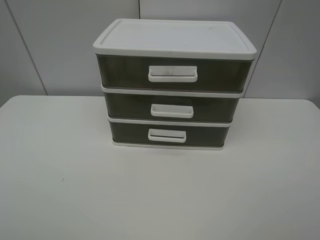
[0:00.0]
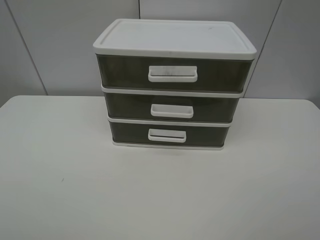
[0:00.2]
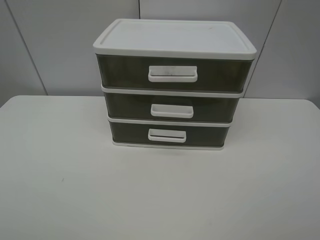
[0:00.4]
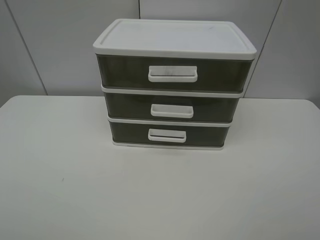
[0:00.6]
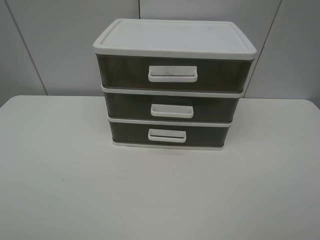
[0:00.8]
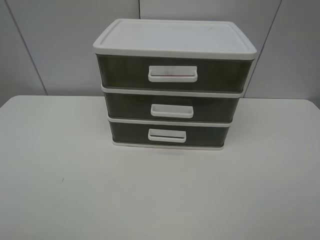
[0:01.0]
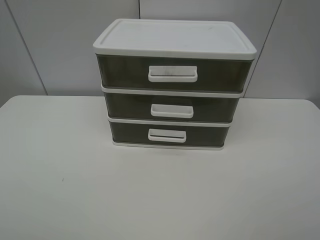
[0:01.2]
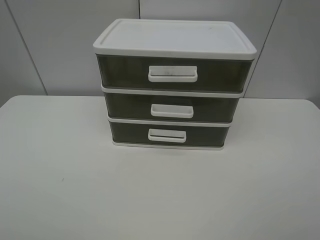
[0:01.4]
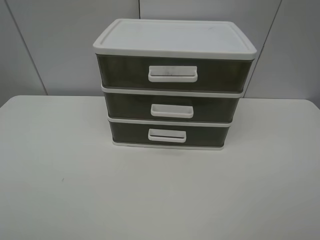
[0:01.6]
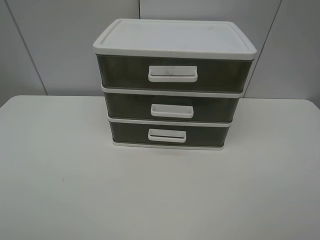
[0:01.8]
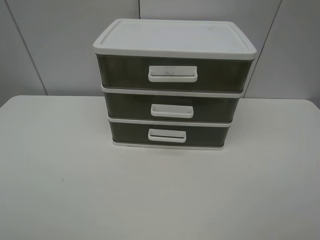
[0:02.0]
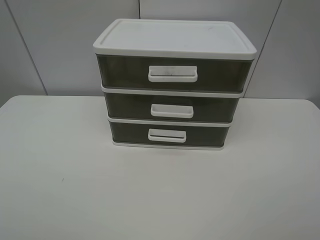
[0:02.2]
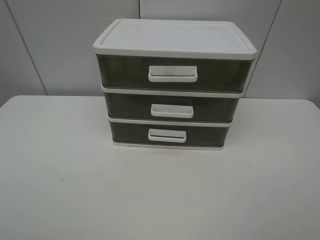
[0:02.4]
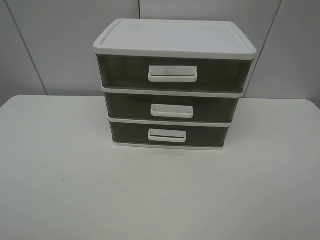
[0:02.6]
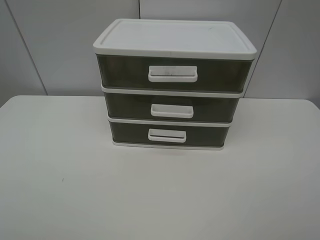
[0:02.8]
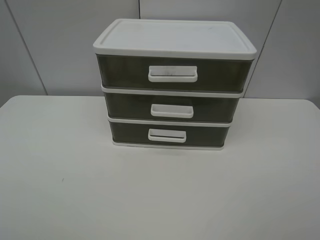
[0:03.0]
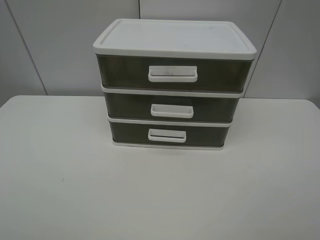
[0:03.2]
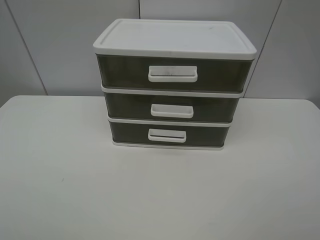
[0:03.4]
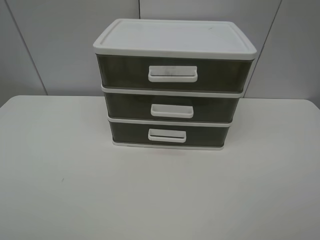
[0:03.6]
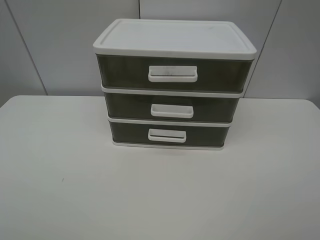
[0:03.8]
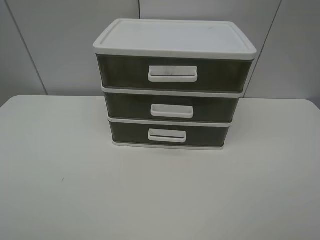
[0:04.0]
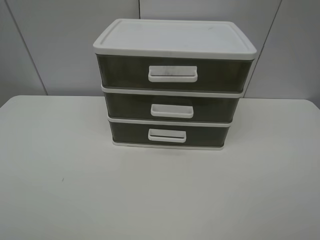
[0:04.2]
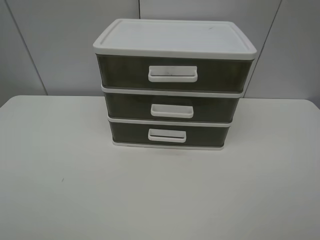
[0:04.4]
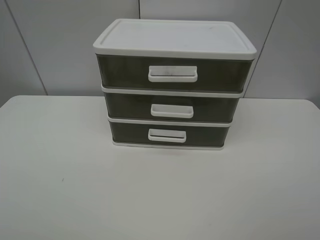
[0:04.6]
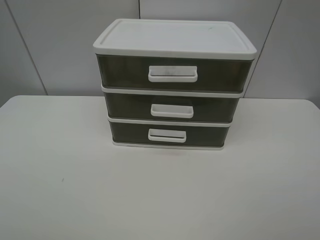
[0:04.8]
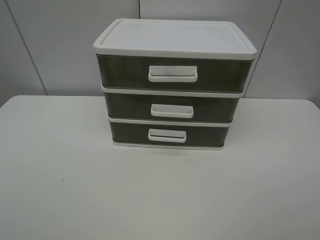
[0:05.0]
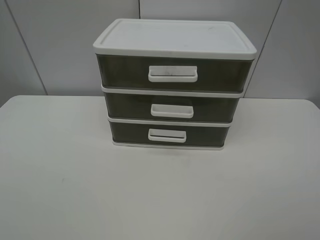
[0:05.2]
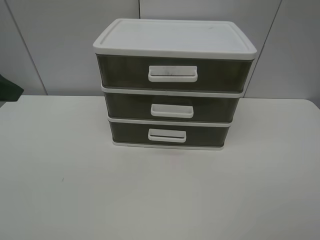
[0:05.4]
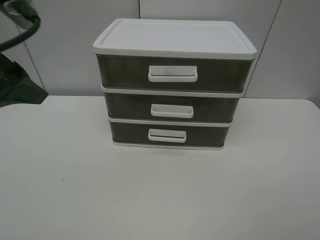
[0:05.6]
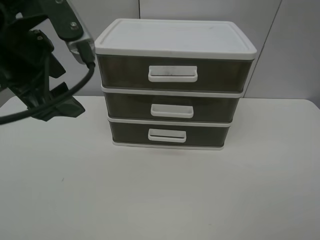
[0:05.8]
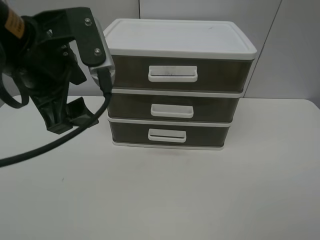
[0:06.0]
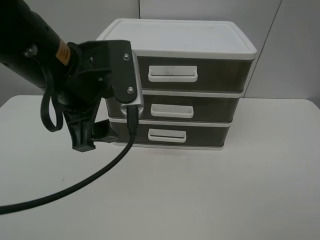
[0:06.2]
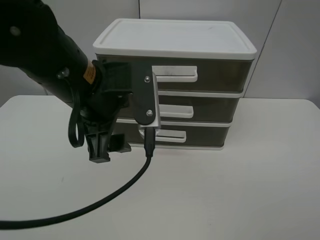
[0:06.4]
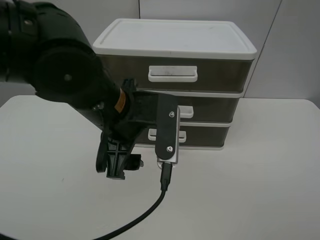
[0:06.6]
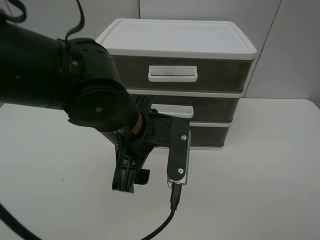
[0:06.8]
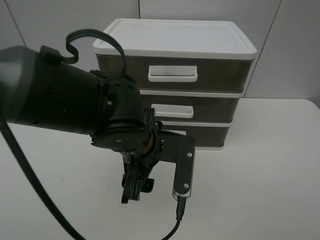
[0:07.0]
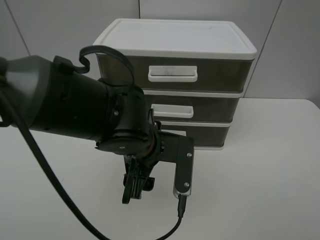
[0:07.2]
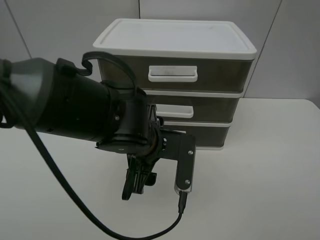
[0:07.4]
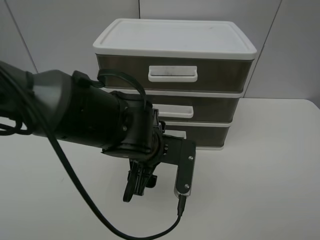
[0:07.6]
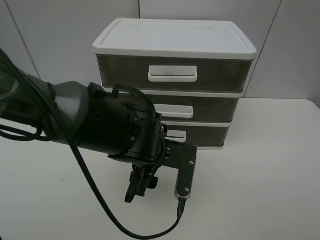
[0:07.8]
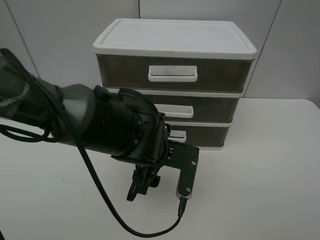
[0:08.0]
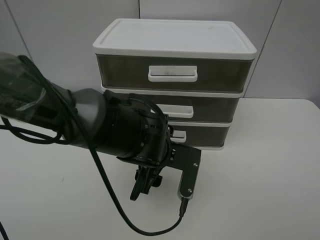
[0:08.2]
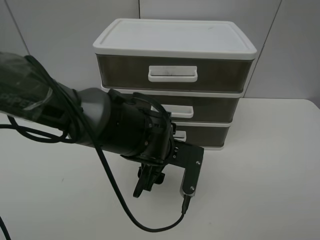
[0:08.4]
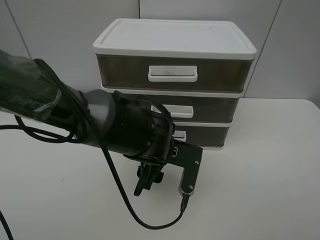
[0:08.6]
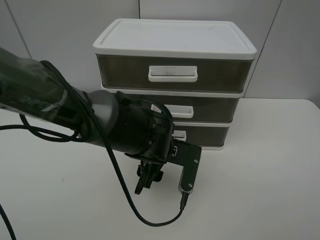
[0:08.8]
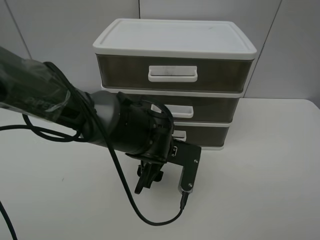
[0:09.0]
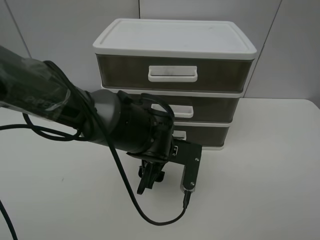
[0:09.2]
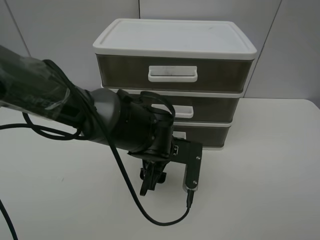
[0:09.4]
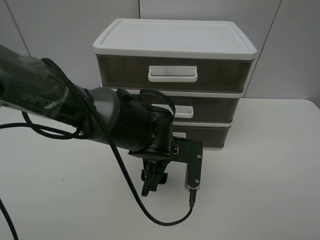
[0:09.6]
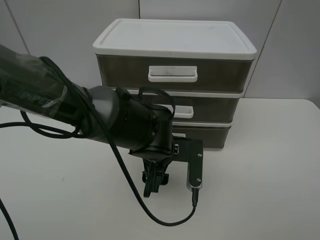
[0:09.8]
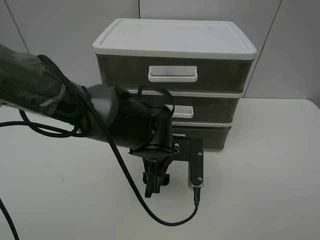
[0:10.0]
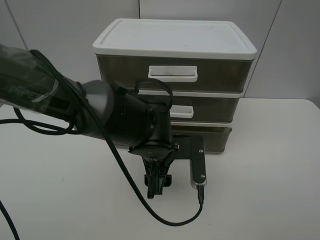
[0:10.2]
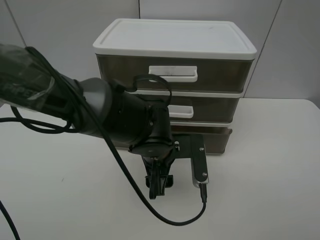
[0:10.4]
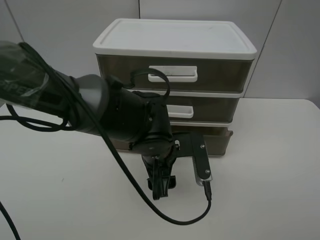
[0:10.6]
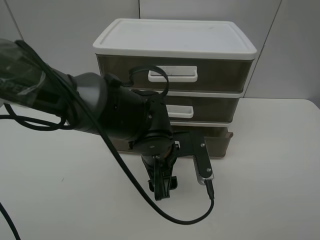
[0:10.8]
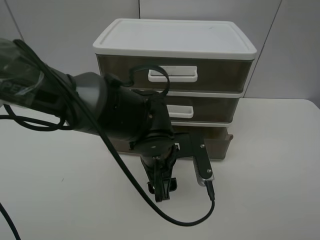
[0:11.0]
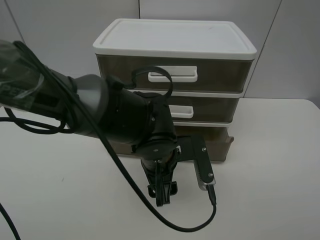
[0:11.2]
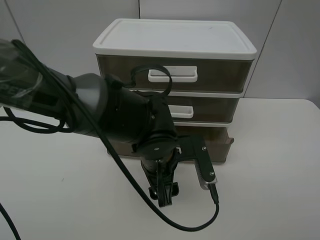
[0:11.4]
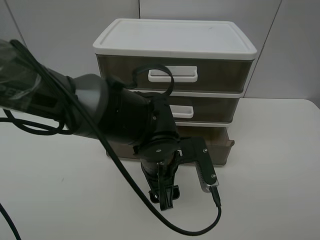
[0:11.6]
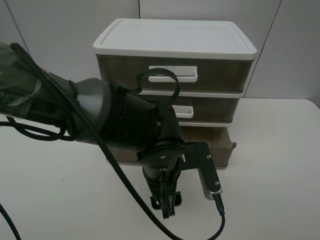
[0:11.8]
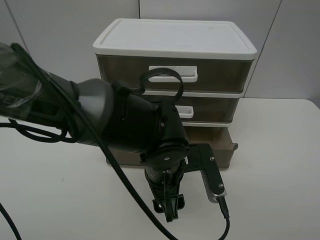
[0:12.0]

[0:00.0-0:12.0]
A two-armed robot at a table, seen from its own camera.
Task of the whole recording: open the bottom drawer.
Step, 0:00.0 to 0:08.8: Grab the bottom drawer with the left gripper.
0:00.0 to 0:04.4: Both grippers stay put.
0:04.4 to 0:06.0: The left gripper moves forward and to the right, roughly 25 cm.
0:06.0 to 0:07.6: The left gripper travels downward and to the right by roughly 20 cm.
0:07.6 to 0:09.0: The grippers make only small movements.
0:10.4 to 0:12.0: The grippers stay close to where they were, moving slightly.

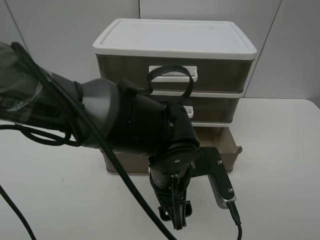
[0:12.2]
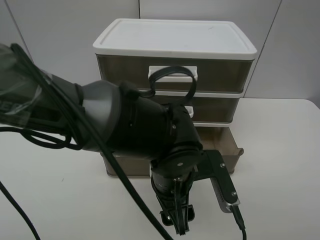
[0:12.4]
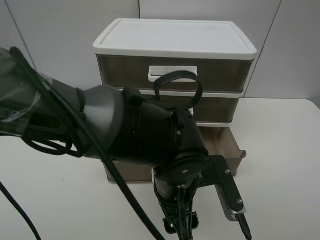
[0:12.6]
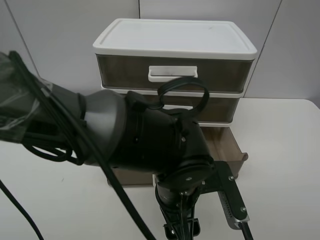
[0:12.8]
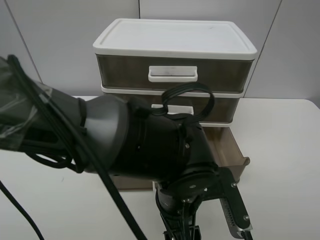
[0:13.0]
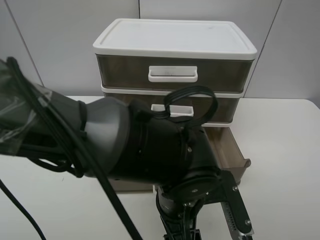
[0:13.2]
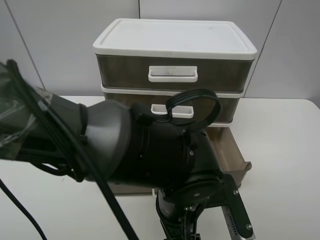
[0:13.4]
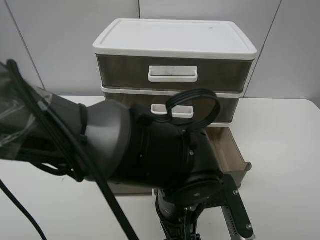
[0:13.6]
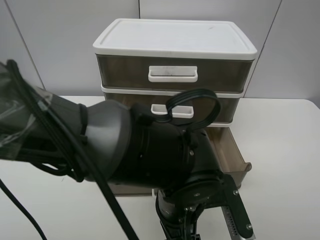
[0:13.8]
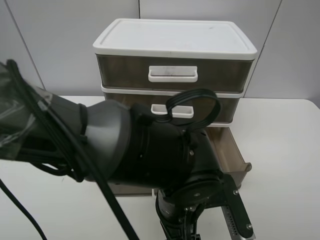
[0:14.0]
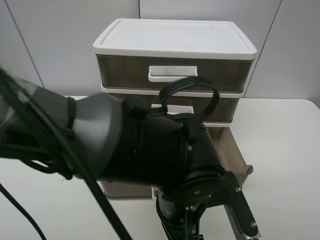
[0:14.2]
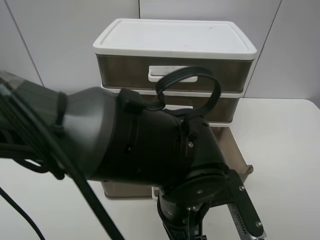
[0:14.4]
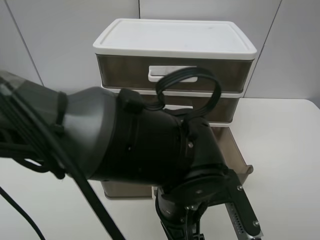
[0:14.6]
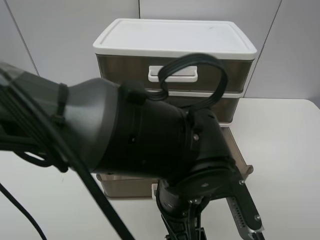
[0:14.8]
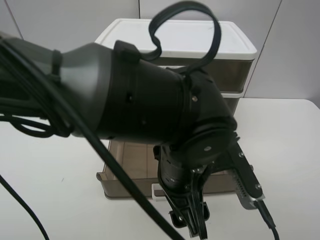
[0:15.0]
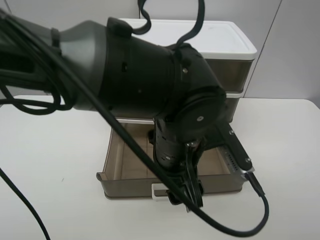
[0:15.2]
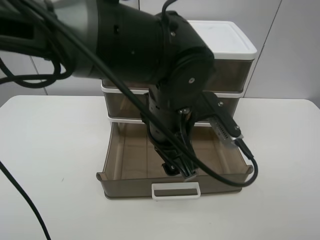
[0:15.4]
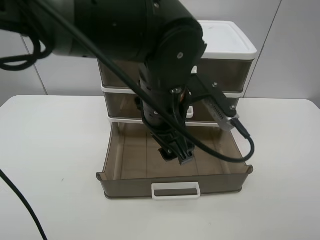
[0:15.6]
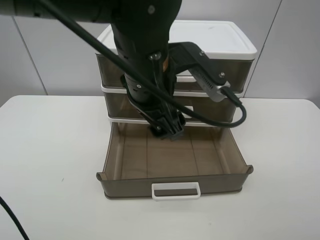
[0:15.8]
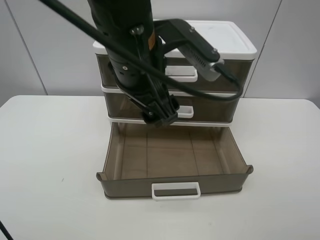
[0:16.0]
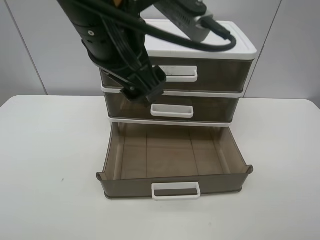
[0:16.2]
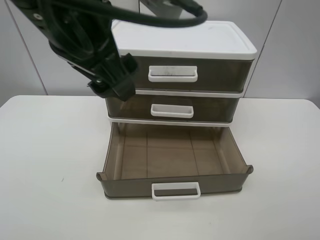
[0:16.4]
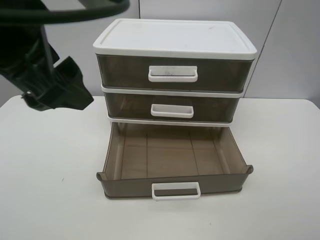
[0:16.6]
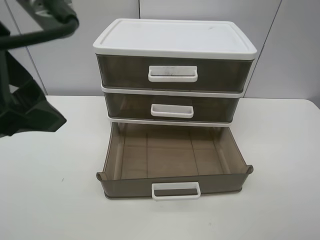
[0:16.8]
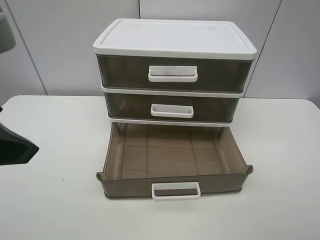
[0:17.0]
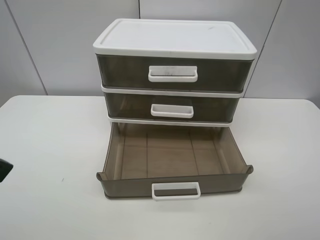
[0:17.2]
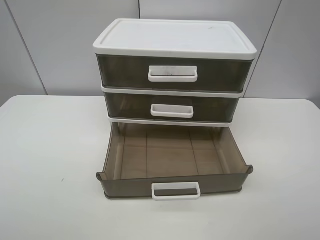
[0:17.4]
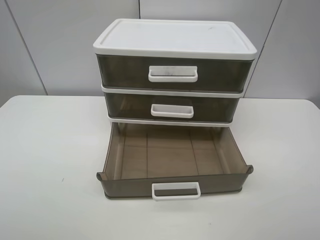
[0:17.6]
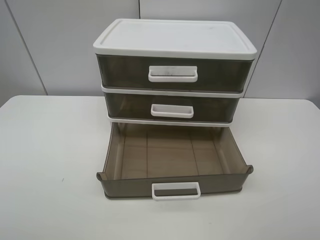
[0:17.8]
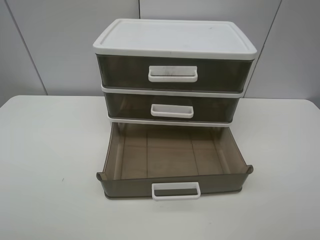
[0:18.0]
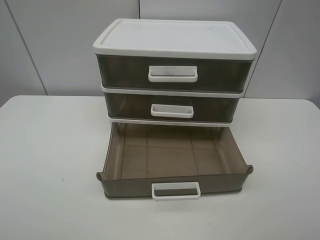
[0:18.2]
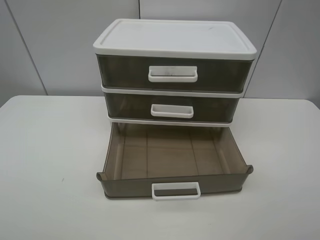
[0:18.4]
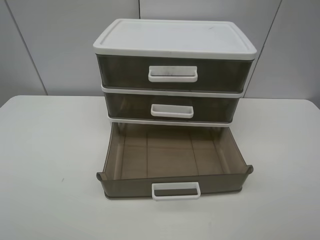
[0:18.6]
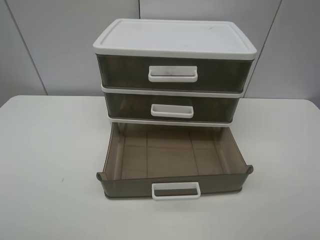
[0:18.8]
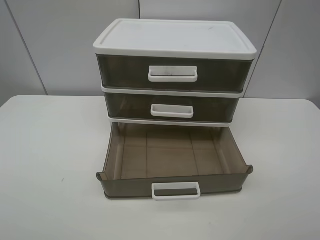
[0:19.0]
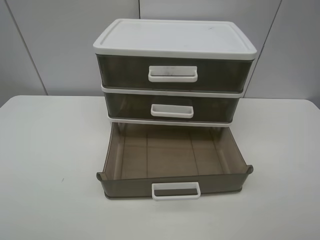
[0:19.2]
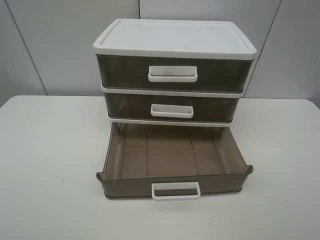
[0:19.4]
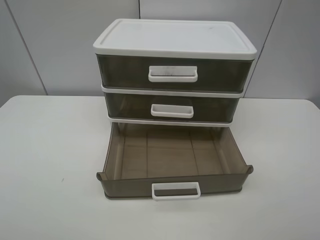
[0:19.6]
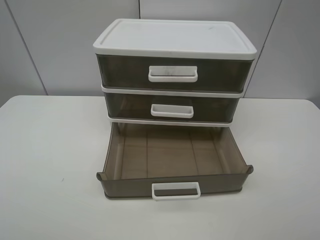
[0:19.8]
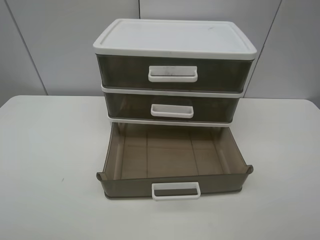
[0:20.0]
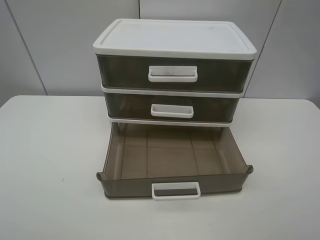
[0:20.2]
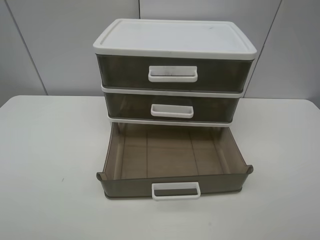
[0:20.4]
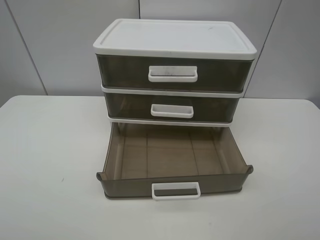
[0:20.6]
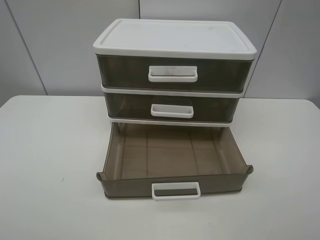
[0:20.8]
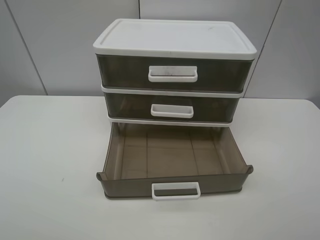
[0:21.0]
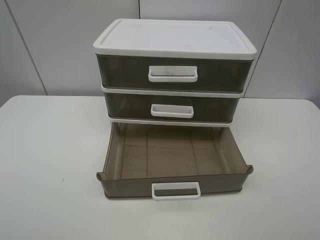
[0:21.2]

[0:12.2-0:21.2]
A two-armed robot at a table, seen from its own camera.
Task of the whole recording: open the bottom drawer.
Step, 0:12.2 to 0:14.6: Pull open the drawer with the left gripper.
0:13.8 to 0:15.2: The left gripper shifts approximately 5 cm upward.
0:15.2 to 0:16.6: The left gripper shifts some 25 cm upward and to the left.
0:16.6 to 0:18.2: The left gripper moves to the left, backward and downward, roughly 25 cm.
